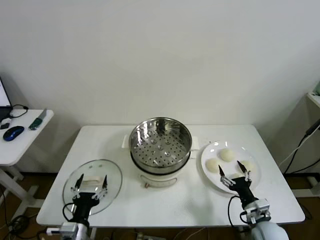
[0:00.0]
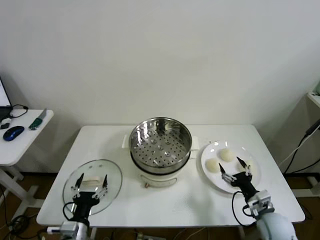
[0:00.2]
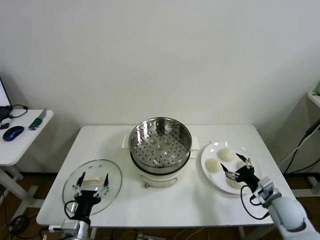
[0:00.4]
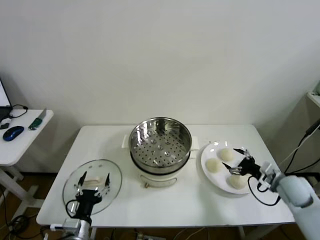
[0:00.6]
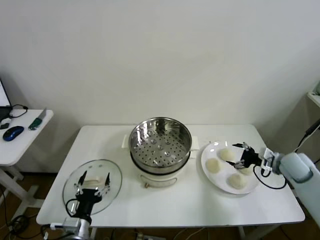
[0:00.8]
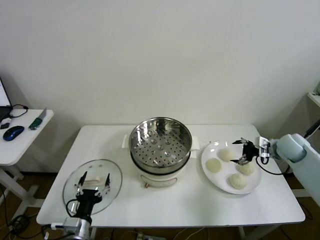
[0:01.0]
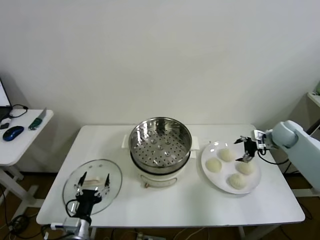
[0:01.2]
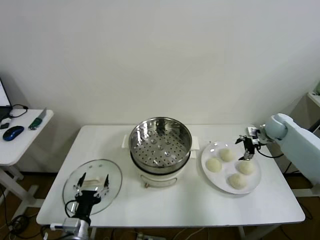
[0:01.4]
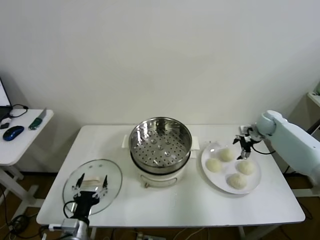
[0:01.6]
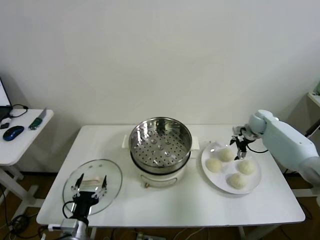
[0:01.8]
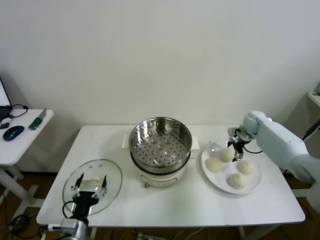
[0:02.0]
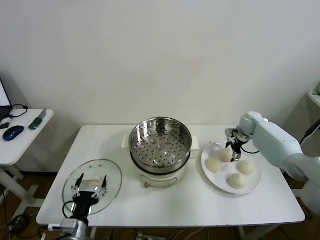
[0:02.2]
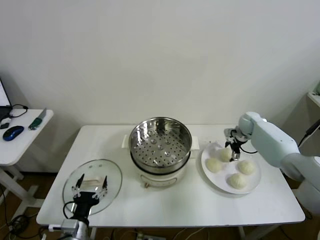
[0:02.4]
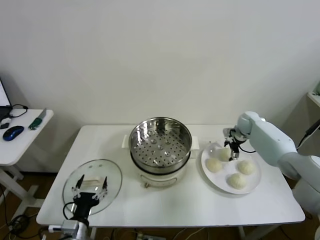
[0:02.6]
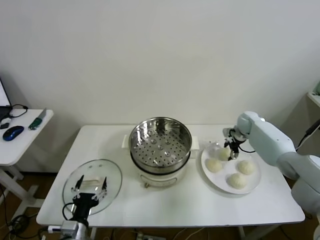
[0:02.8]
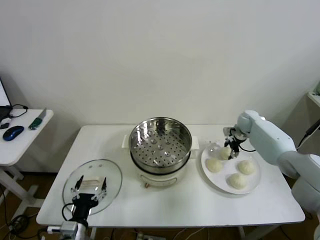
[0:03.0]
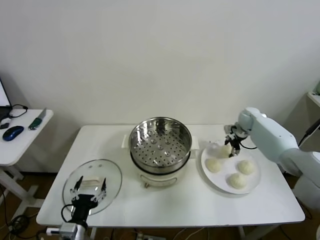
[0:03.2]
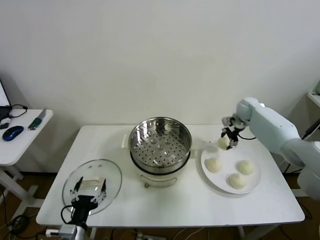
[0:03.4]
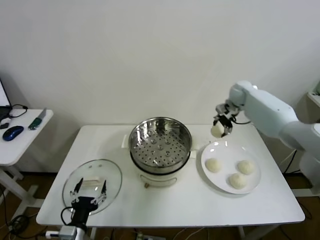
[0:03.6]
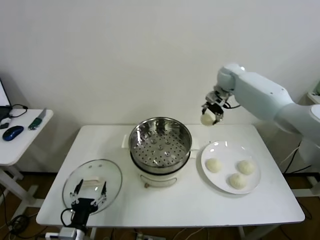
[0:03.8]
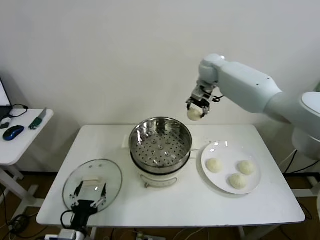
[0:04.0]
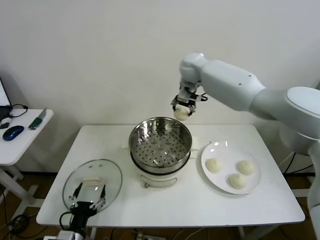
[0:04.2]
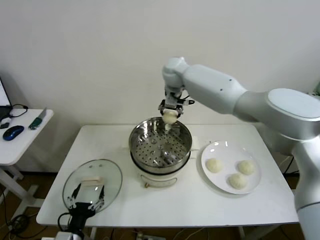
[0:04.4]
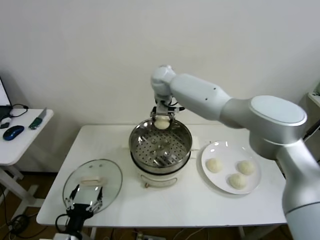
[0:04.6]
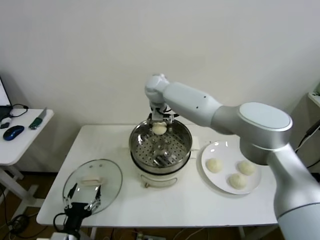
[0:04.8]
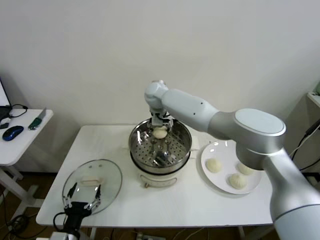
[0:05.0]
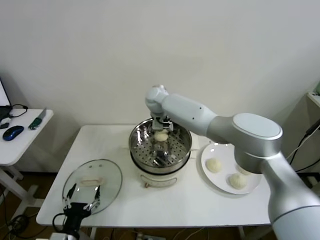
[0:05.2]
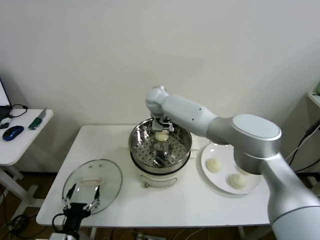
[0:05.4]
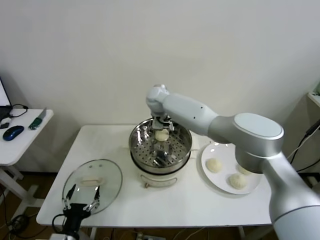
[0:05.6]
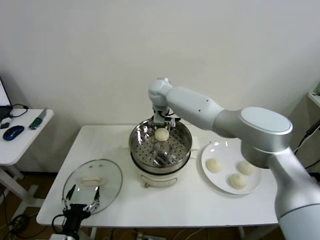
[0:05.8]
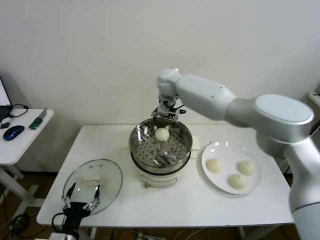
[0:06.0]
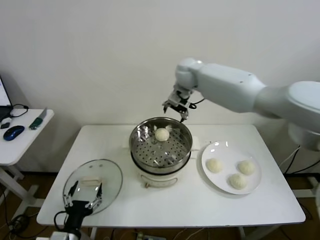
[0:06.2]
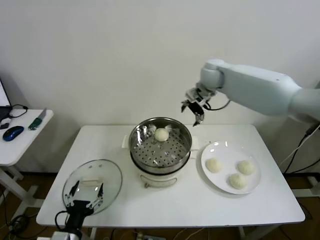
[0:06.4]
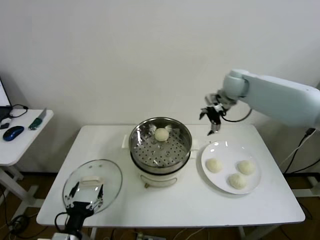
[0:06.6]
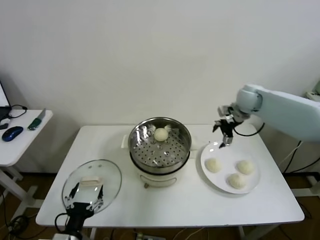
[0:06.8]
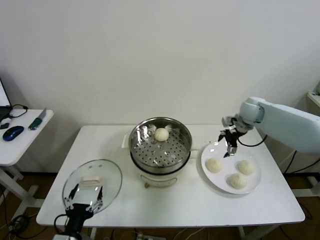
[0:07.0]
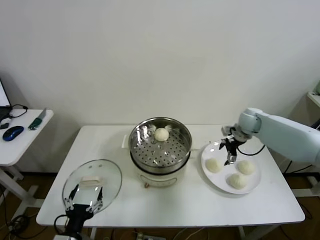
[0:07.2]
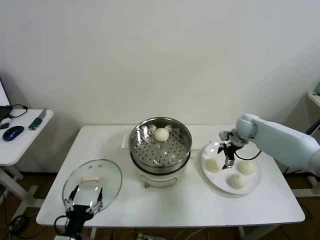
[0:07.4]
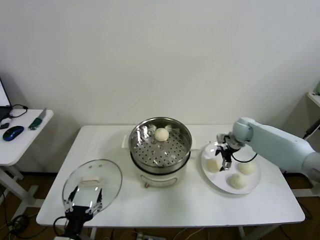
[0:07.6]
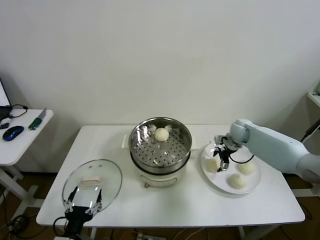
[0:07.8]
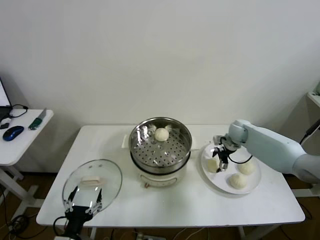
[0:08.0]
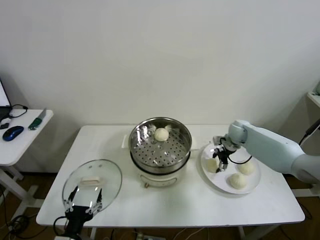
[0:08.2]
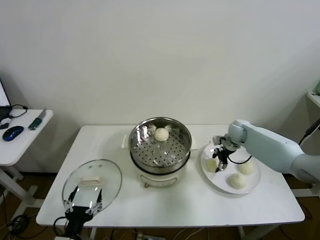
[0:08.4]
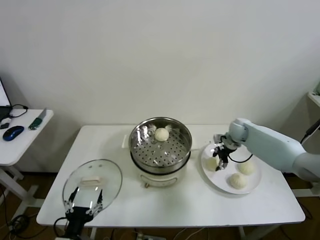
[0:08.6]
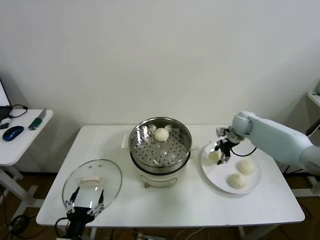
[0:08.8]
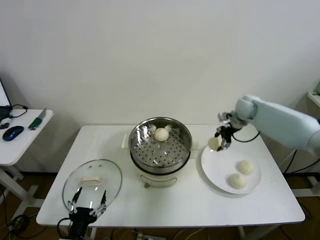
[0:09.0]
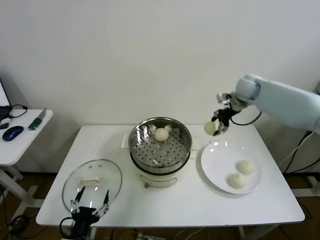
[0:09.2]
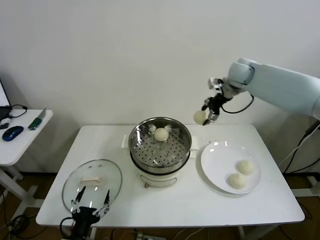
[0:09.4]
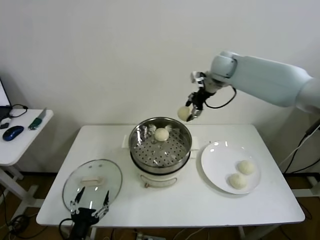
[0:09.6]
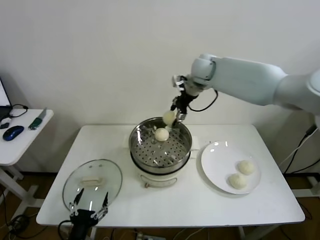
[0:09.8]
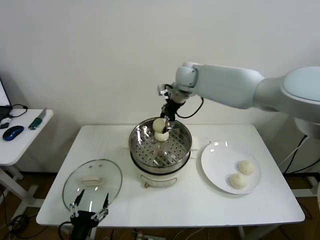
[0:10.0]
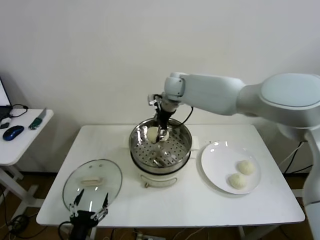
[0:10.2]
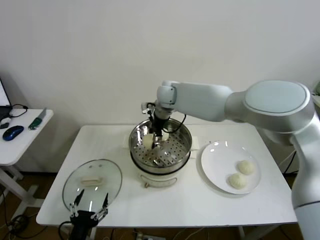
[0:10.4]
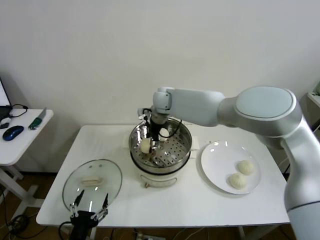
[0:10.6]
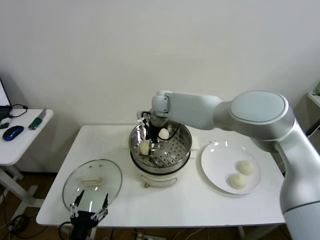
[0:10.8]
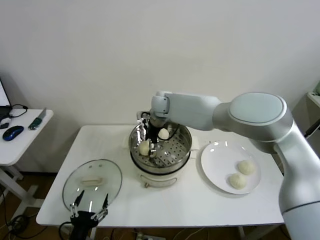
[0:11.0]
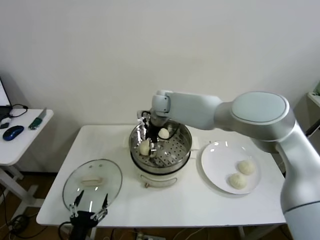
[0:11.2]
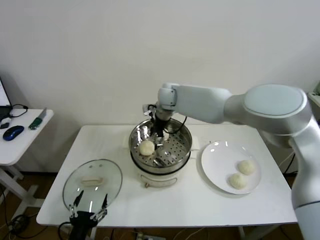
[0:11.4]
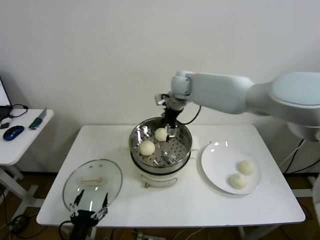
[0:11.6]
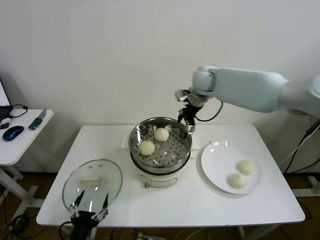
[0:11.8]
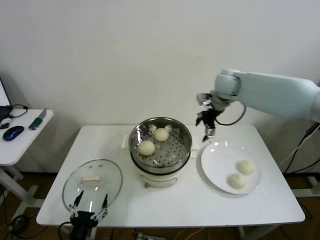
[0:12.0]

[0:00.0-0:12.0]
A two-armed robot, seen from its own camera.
Step, 0:00.0 to 0:02.6: Grasp the baozi in the plate with right gripper.
Step, 0:02.8 to 0:05.2: Place the baozi on the steamer with right gripper.
Step, 0:05.4 to 0:08.2: Grasp the baozi in the plate with right gripper.
Step, 0:08.4 to 0:10.8: Place the baozi on the steamer with right gripper.
0:01.6 to 0:03.0: The right gripper changes place by some 5 cm, and closes up.
0:03.0 to 0:04.4: The right gripper travels to the left and upward by about 40 cm.
0:04.4 to 0:06.0: The right gripper moves roughly 10 cm downward and comes back, and opens up.
0:06.0 to 0:07.6: The right gripper is displaced to the right and downward by about 35 cm.
0:07.6 to 0:09.0: The right gripper goes approximately 10 cm upward, and closes.
0:09.0 to 0:10.4: The right gripper is displaced to the left by roughly 30 cm.
0:10.4 to 0:12.0: The right gripper moves to the right, roughly 20 cm, and opens.

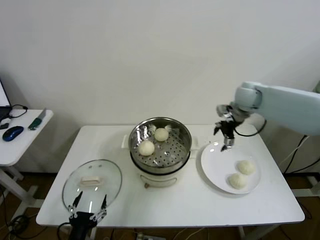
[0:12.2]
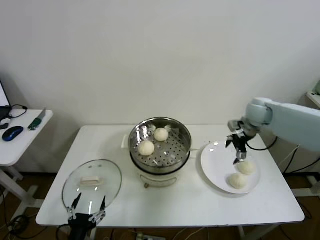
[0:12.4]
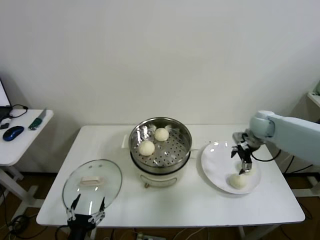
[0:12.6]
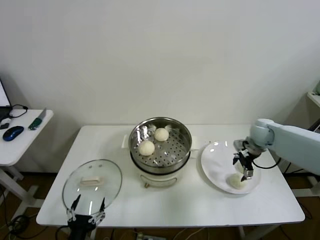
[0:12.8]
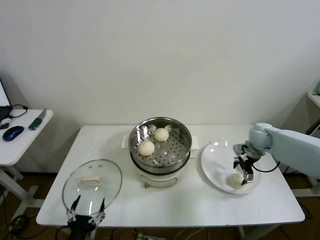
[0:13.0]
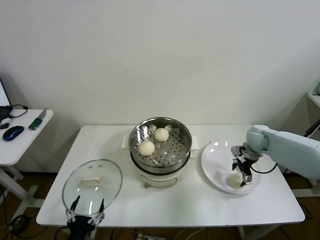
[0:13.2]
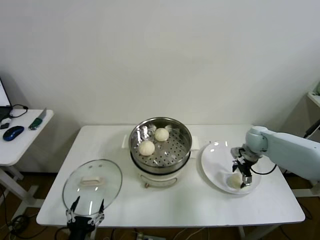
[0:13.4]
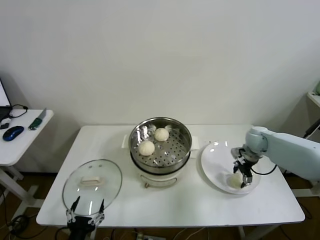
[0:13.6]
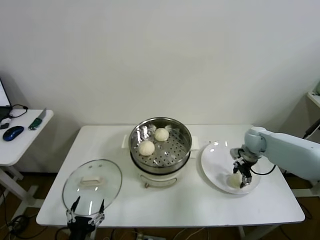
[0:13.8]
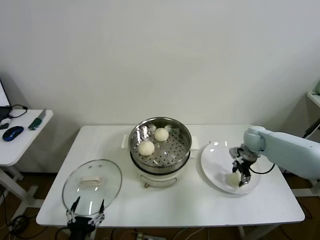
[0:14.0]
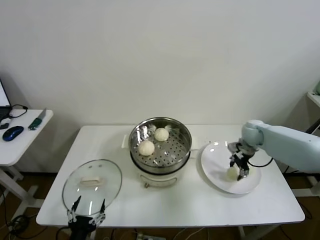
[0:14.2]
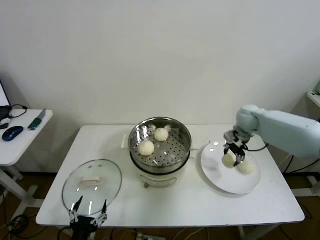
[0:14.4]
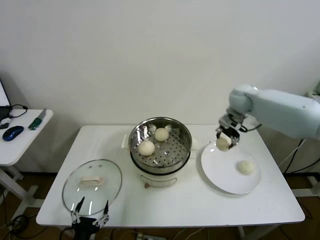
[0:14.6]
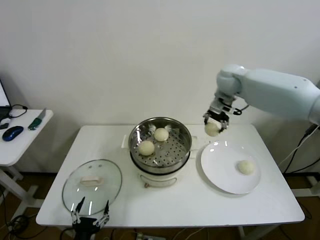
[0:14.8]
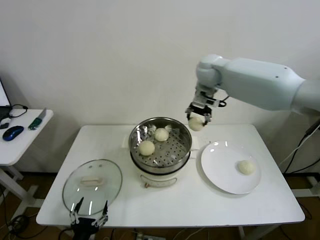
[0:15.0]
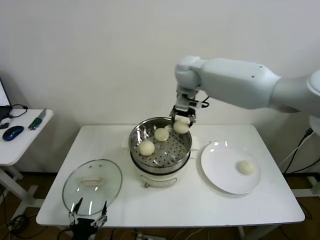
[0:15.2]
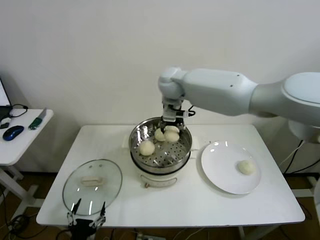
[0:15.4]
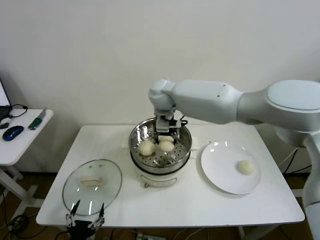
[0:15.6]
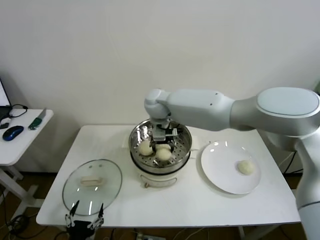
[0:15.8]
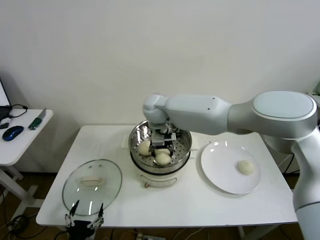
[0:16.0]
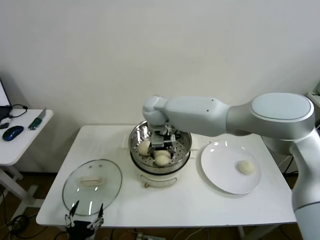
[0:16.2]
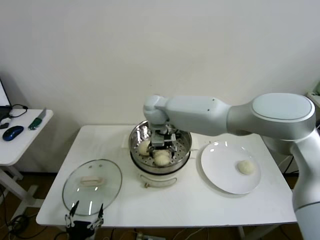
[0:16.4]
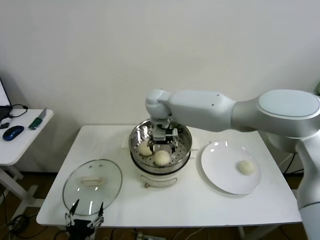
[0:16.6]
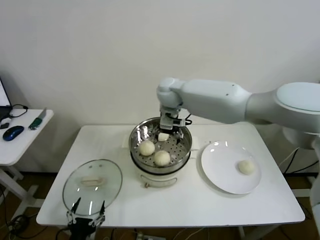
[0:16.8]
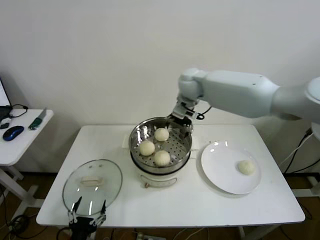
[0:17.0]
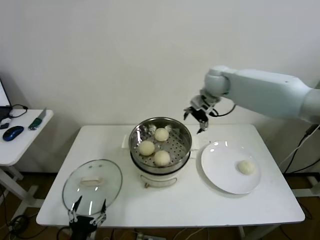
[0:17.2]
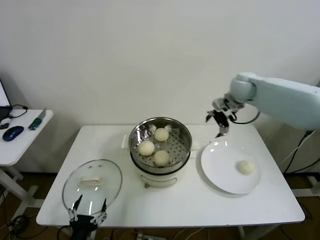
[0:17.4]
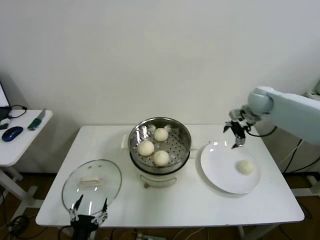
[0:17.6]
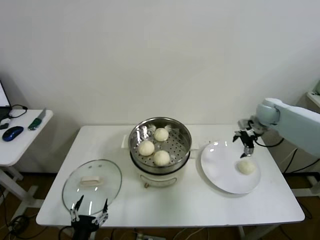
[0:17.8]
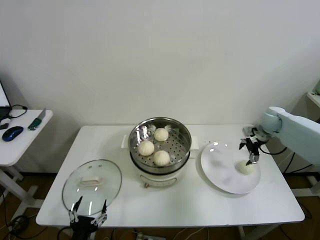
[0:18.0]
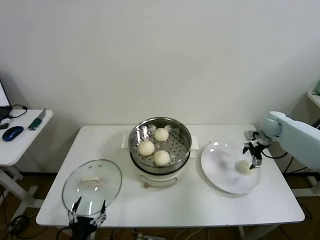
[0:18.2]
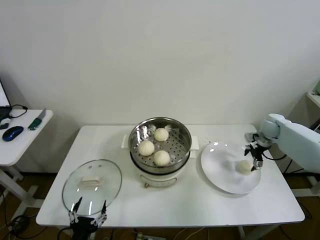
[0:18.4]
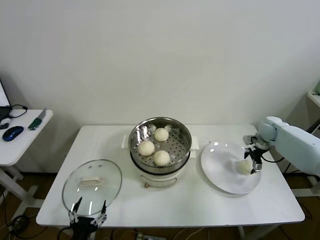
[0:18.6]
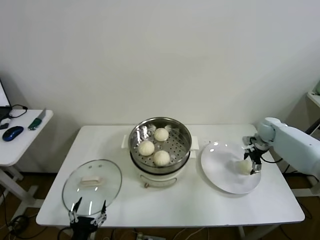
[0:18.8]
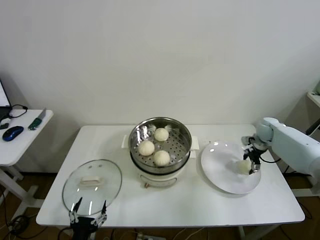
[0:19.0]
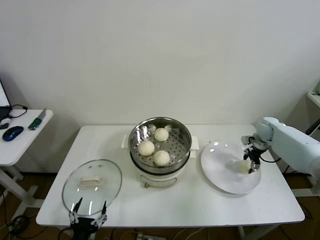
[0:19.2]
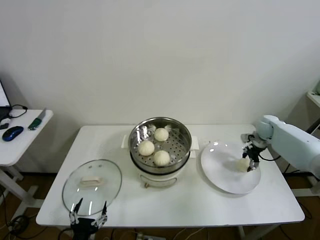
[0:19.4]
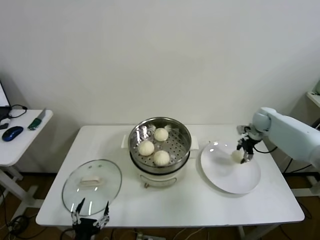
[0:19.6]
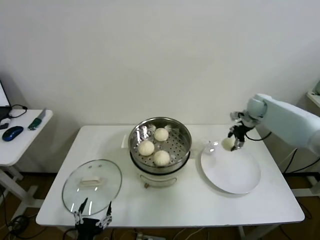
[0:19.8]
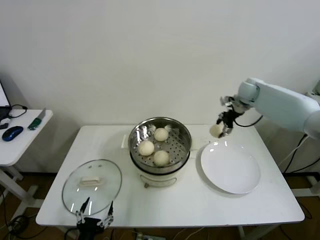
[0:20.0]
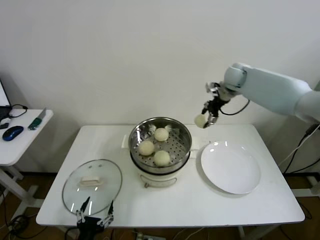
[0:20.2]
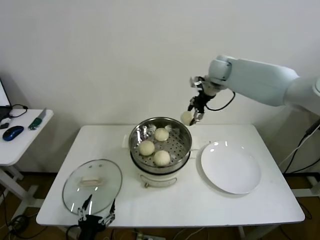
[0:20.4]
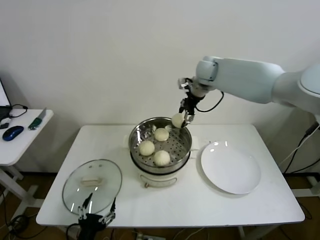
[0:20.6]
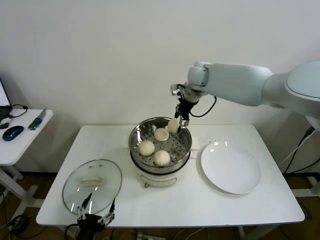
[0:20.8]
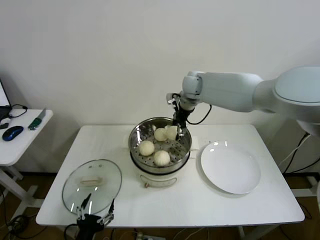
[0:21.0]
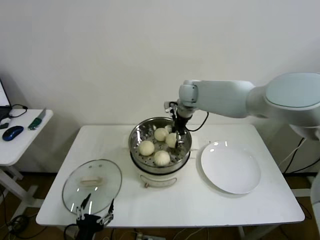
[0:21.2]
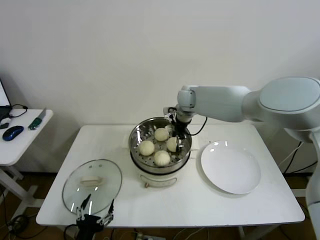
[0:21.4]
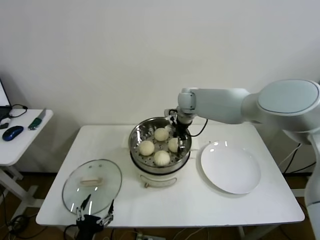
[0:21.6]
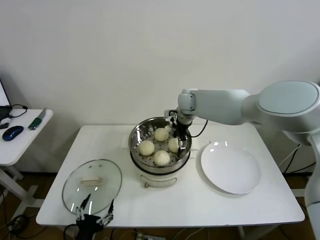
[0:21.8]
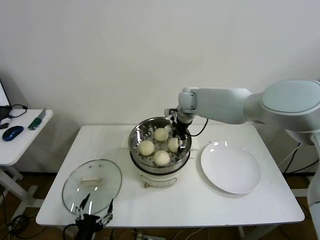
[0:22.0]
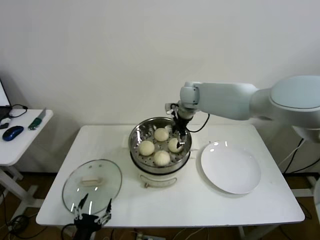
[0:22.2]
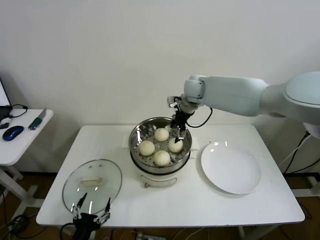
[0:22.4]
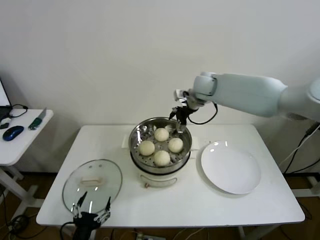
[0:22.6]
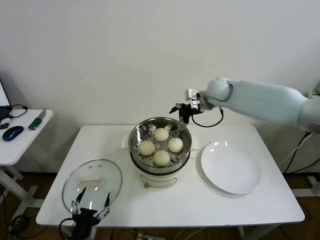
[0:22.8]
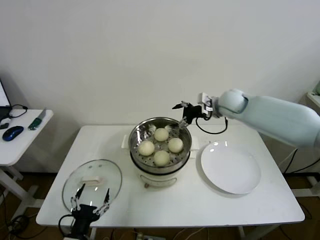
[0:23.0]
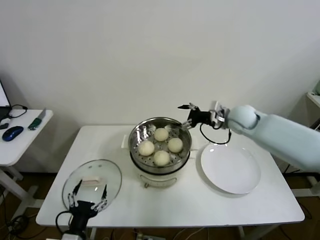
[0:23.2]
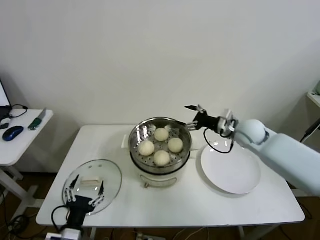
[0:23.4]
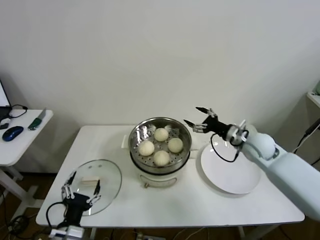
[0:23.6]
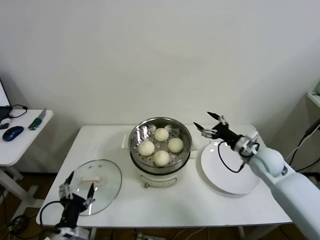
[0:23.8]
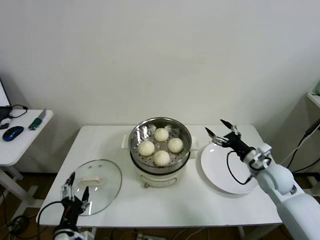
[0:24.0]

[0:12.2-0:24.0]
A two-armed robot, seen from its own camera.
Step, 0:12.2 to 0:13.6: Grasp the baozi in the plate with right gripper.
Step, 0:13.8 to 0:16.2: Place the baozi on the steamer with right gripper.
Step, 0:16.4 to 0:19.0: Grasp the baozi in the plate with right gripper.
Step, 0:19.2 to 0:21.6: Place the baozi on the steamer with right gripper.
0:12.2 to 0:13.6: The right gripper is displaced downward and to the right by approximately 20 cm, and closes its fingers.
0:13.6 to 0:15.2: The right gripper is displaced to the left and upward by roughly 40 cm, and closes its fingers.
0:15.2 to 0:16.6: The right gripper travels to the left and downward by some 15 cm, and opens its fingers.
0:16.6 to 0:18.2: The right gripper goes about 40 cm to the right.
0:18.2 to 0:19.6: The right gripper closes its fingers.
0:19.6 to 0:21.0: The right gripper is displaced to the left and upward by some 35 cm.
0:21.0 to 0:22.6: The right gripper opens its fingers.
0:22.6 to 0:24.0: The right gripper moves backward, to the right and downward, about 35 cm.
